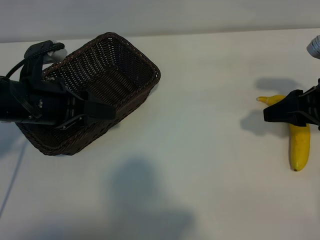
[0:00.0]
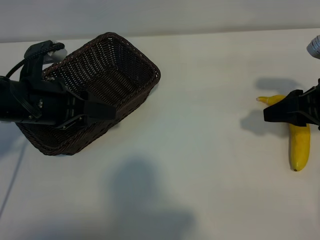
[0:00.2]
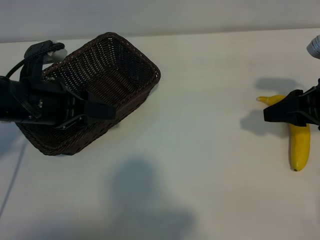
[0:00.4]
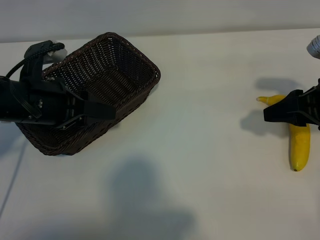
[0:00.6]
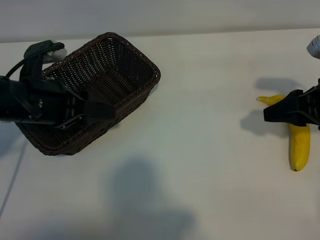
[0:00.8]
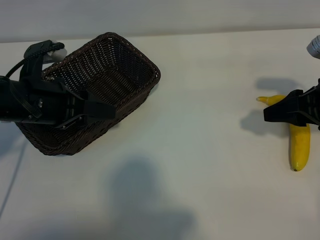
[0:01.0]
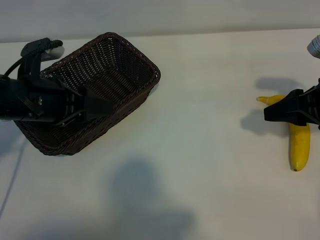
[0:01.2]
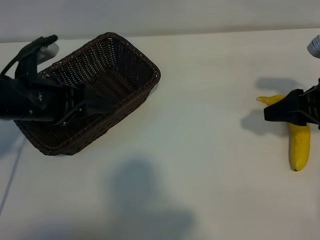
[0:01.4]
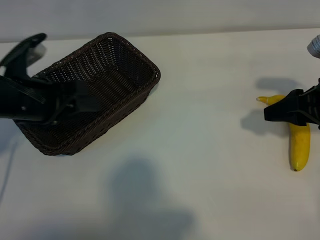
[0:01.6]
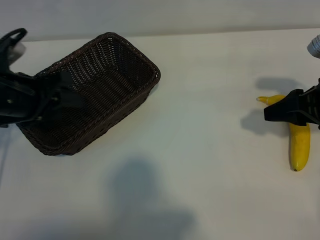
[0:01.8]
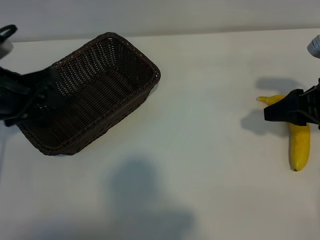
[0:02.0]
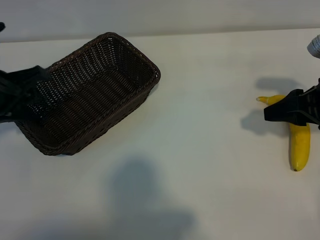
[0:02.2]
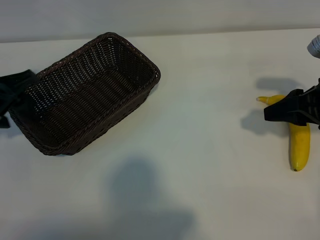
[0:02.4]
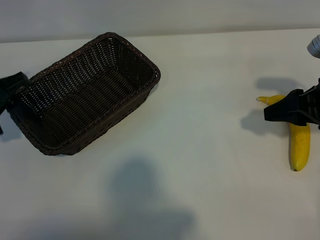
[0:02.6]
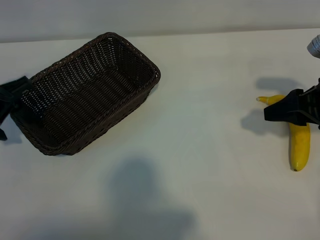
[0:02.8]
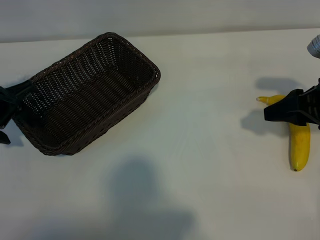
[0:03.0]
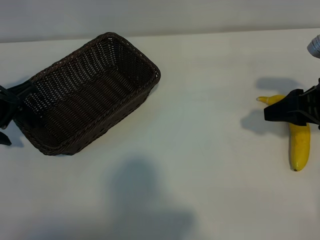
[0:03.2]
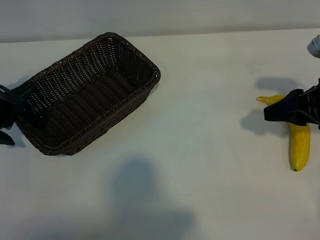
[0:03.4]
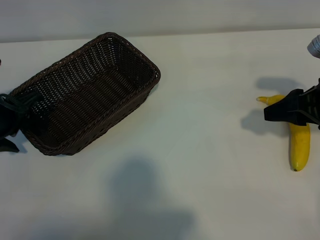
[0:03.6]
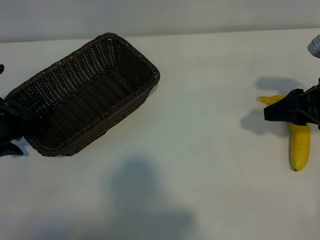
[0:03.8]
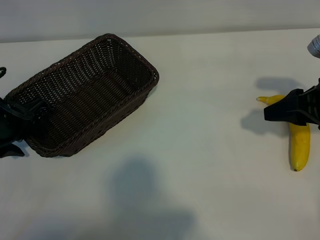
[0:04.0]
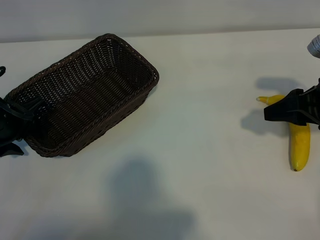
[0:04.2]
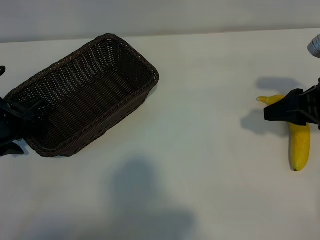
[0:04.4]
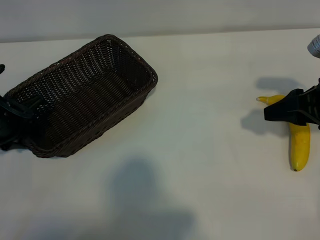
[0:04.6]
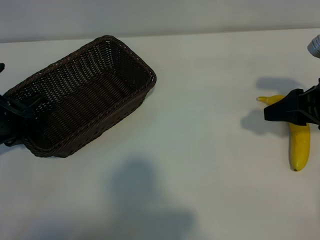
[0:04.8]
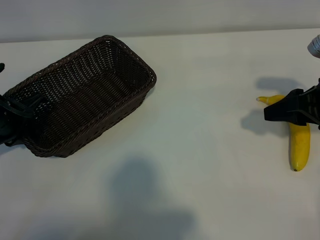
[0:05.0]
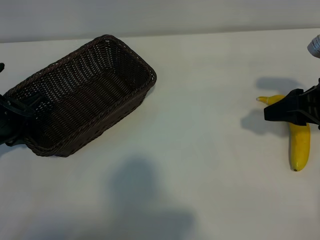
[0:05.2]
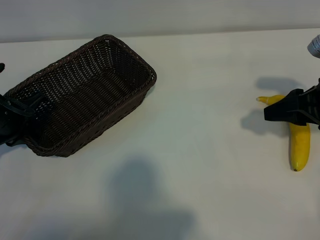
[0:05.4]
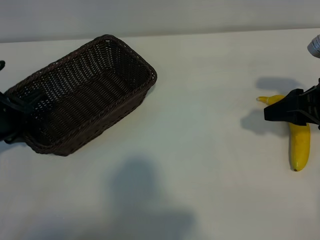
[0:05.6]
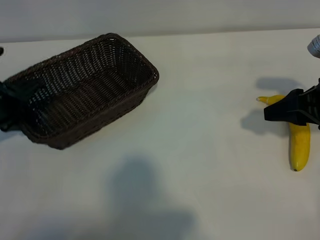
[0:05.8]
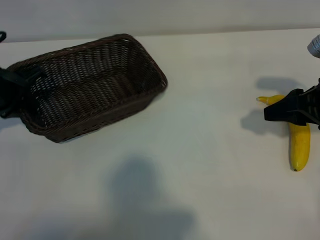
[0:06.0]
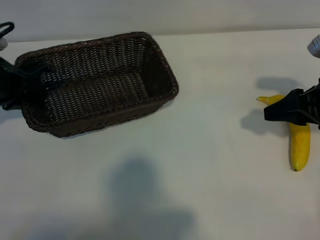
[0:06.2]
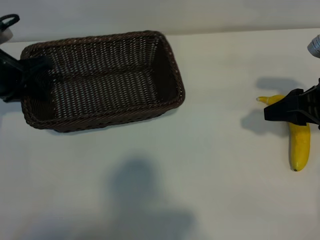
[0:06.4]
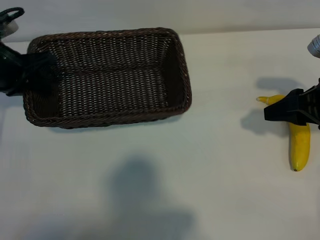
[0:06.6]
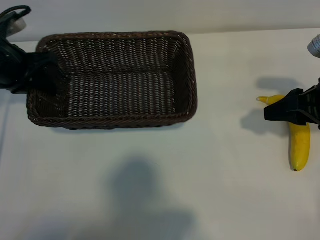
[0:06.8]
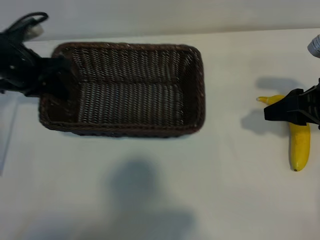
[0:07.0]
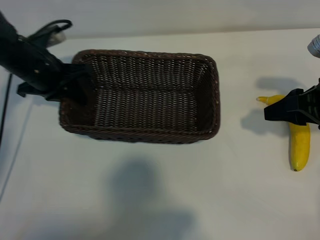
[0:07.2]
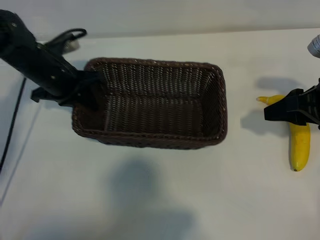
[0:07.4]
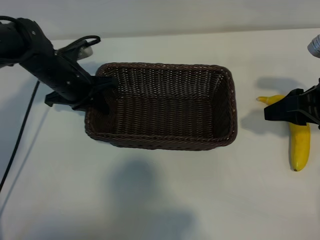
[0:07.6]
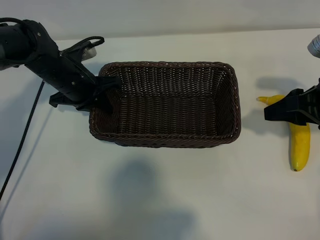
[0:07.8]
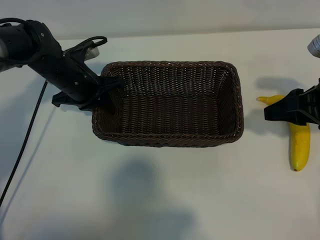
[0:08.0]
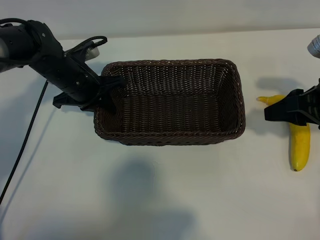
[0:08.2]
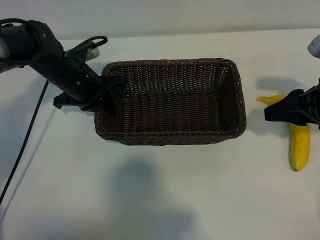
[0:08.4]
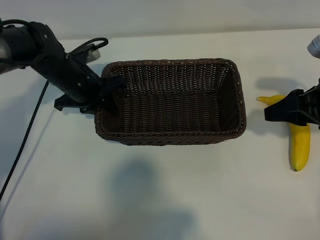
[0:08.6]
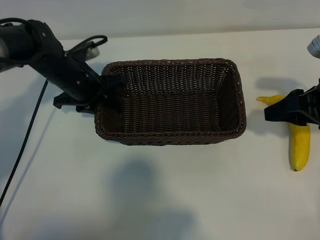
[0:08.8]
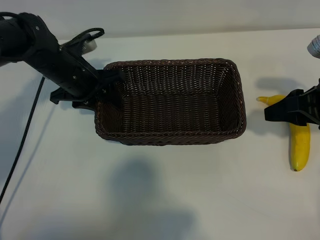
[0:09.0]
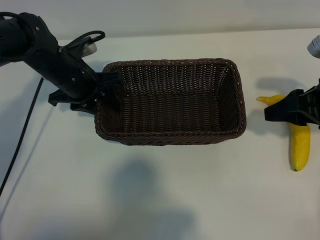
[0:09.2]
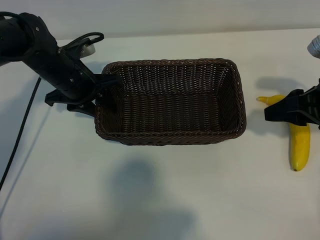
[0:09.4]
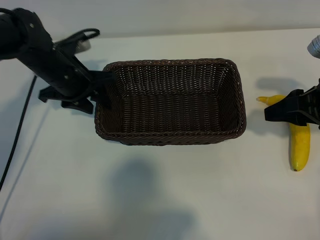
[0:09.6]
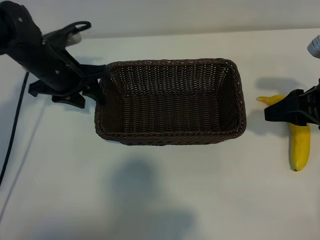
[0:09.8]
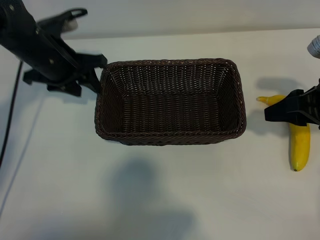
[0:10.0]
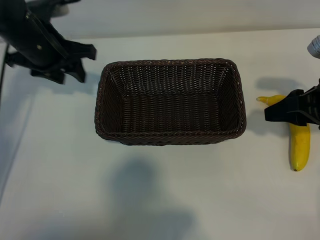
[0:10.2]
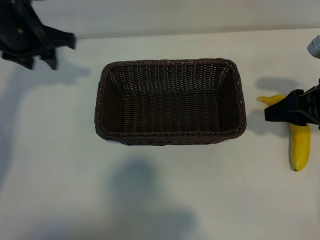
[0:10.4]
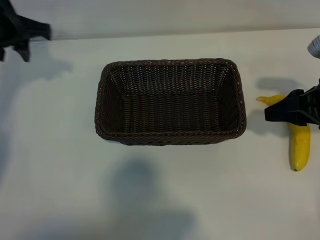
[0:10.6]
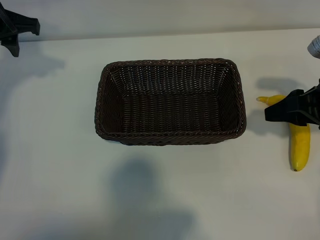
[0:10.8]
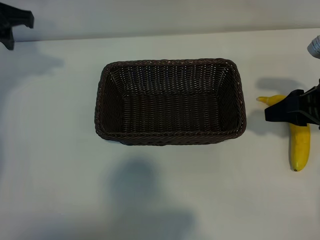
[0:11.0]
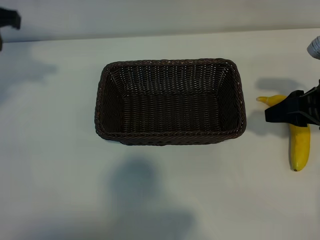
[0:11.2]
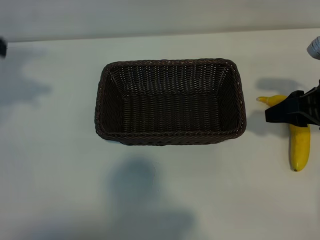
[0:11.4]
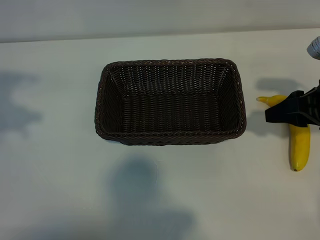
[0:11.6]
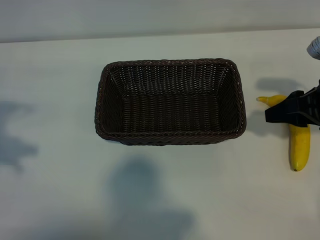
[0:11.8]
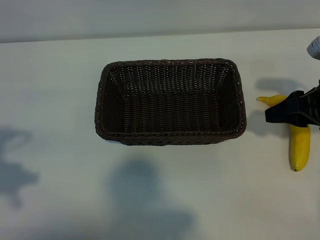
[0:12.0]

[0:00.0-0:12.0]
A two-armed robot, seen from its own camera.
Task of the whole recording: pick up the banana and put it into the basket.
Step, 0:00.8 to 0:05.6: Grasp the basket with the left gripper.
Step, 0:05.8 to 0:09.6: Place the basket in the center of the table with the left gripper.

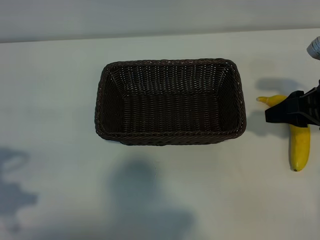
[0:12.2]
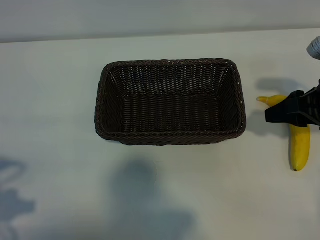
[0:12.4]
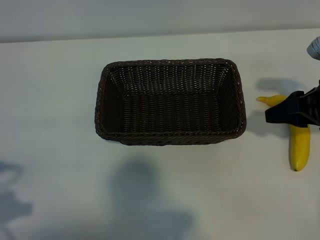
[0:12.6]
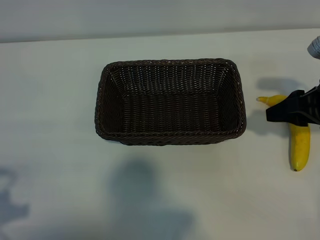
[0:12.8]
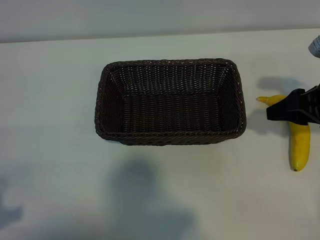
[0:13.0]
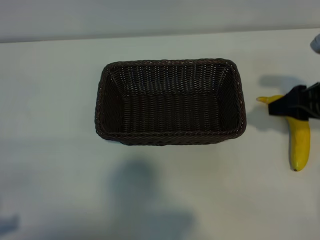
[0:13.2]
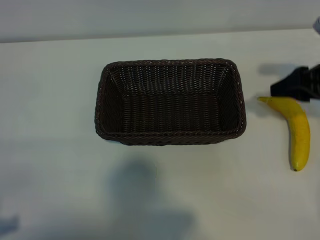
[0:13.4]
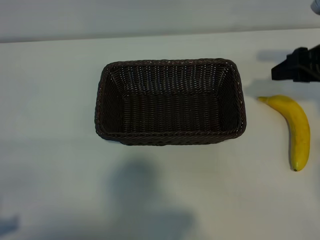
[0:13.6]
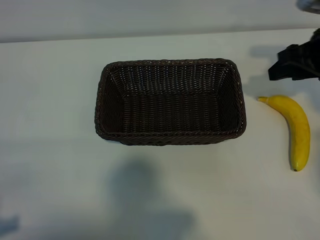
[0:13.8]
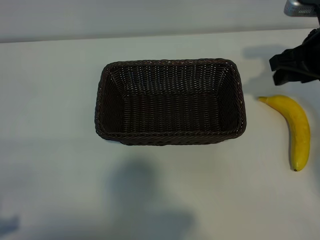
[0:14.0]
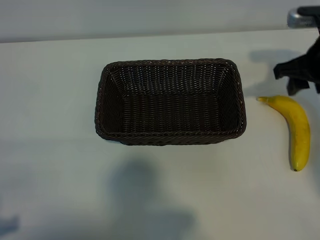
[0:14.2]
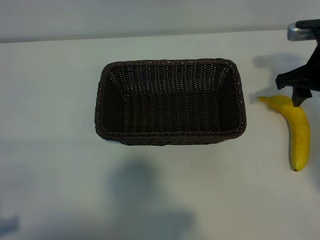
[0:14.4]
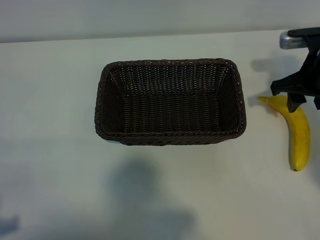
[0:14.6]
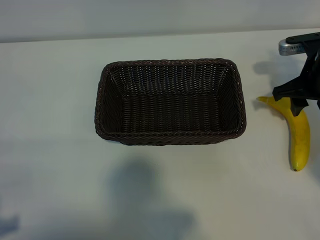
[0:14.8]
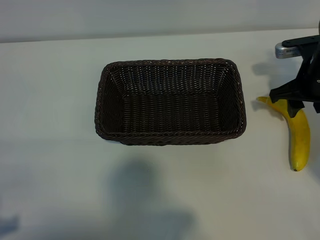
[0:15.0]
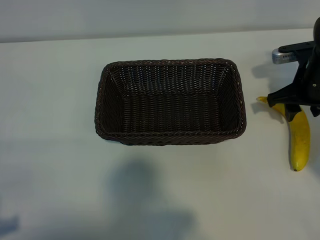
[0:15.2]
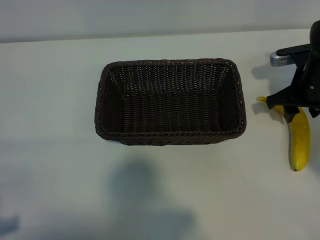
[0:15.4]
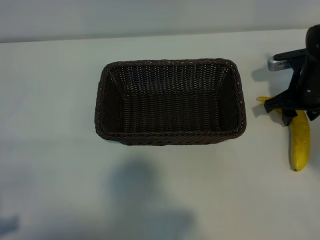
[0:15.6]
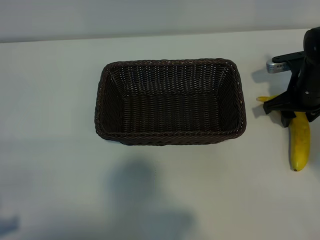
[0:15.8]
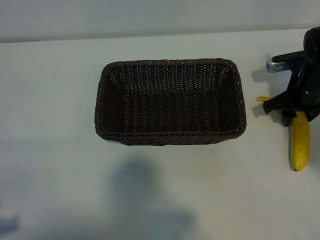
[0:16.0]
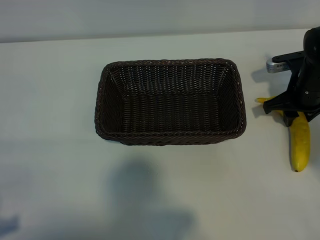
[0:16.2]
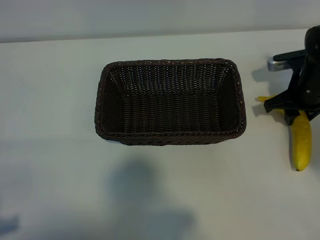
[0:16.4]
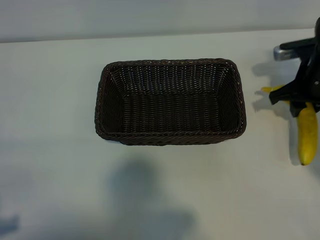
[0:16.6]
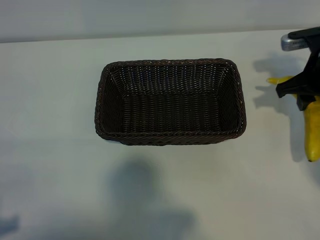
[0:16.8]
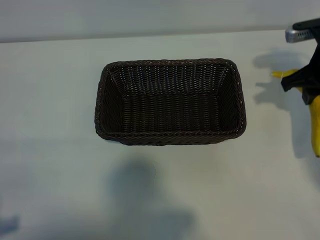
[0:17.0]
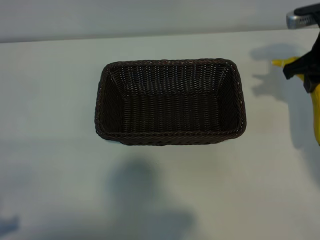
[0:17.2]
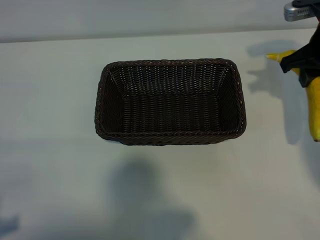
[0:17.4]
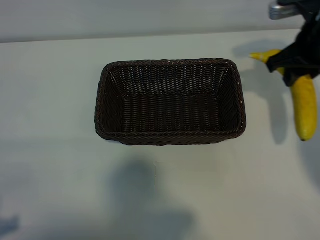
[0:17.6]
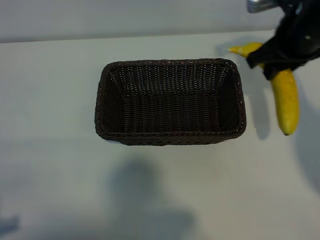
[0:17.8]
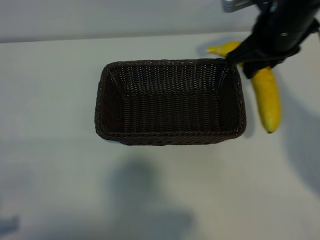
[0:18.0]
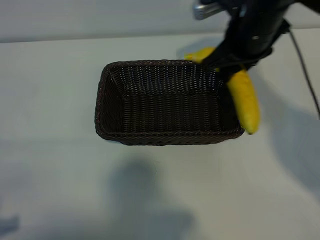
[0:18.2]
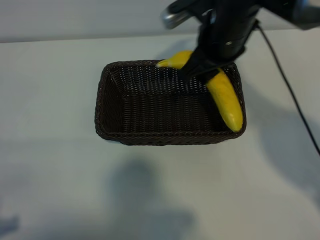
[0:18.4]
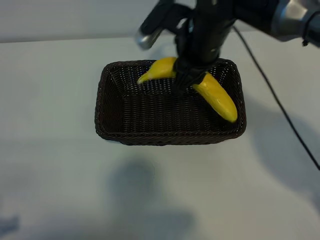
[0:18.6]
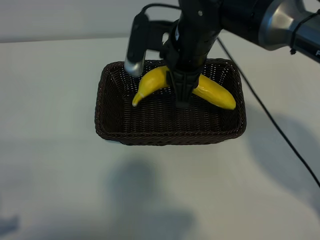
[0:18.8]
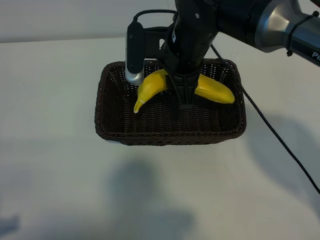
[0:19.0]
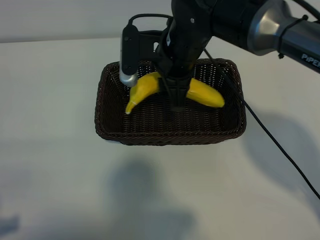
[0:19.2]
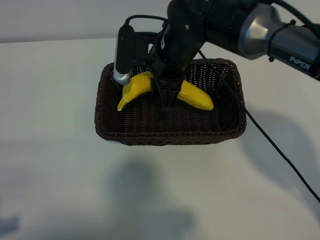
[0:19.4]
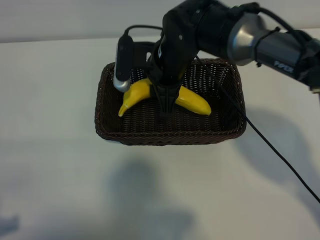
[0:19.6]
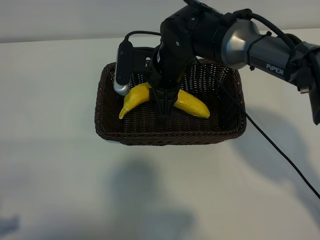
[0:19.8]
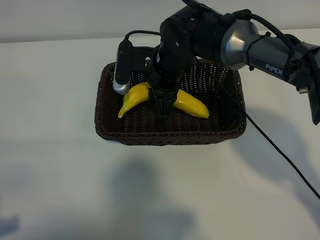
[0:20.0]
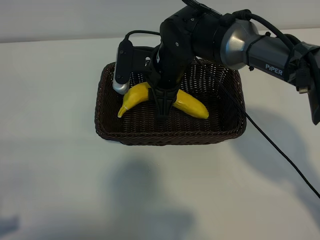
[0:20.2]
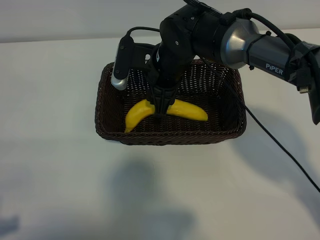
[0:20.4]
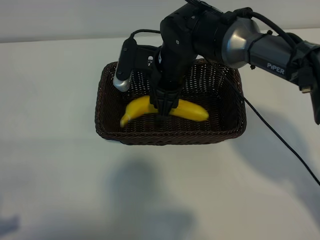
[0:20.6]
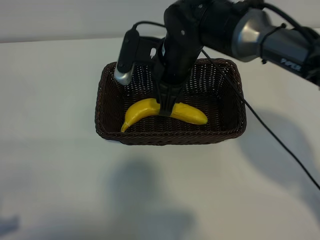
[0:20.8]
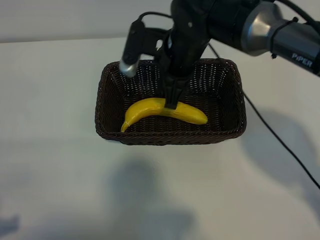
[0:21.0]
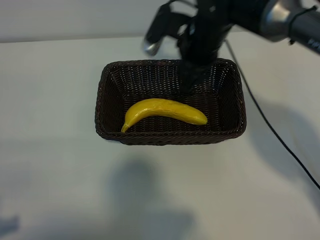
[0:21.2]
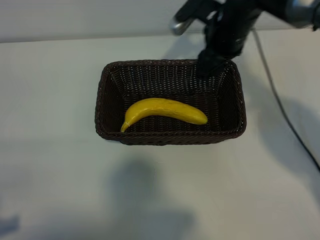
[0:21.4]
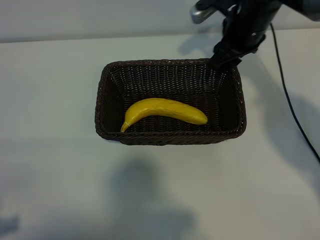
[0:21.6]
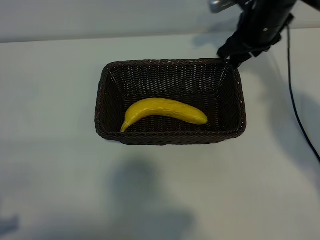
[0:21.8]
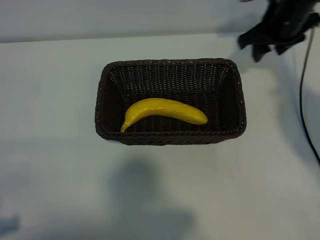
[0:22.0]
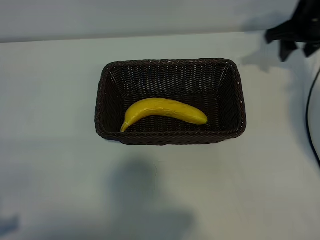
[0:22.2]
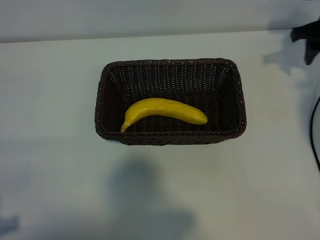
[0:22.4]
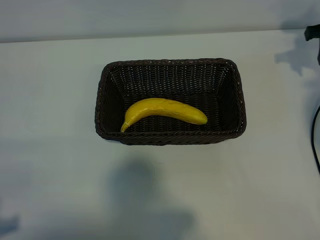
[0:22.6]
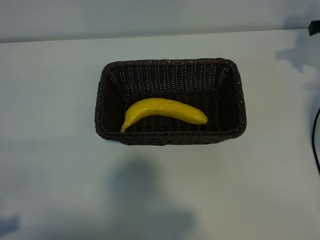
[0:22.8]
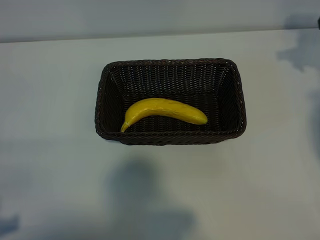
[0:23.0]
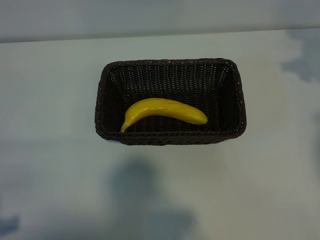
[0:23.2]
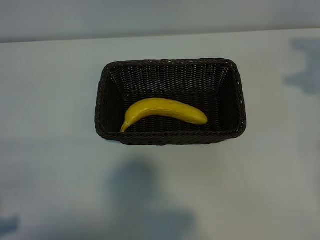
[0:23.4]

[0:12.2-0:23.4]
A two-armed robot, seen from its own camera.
Task of the whole recording: pick up the banana and put it into the basket.
Step, 0:12.2 to 0:16.4: Grasp the banana with right gripper.
Step, 0:16.6 to 0:21.0: Place the banana in the basket with right gripper.
